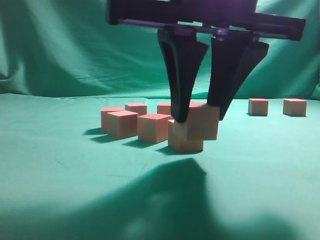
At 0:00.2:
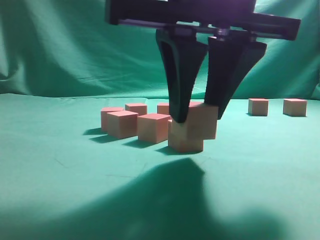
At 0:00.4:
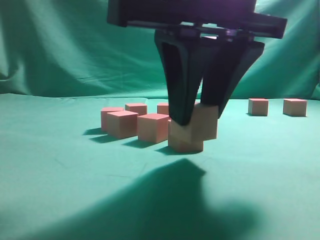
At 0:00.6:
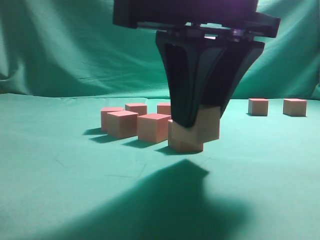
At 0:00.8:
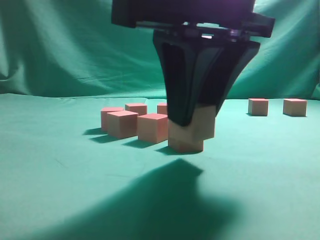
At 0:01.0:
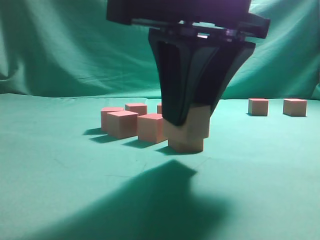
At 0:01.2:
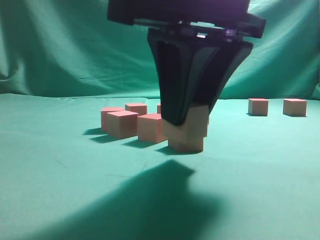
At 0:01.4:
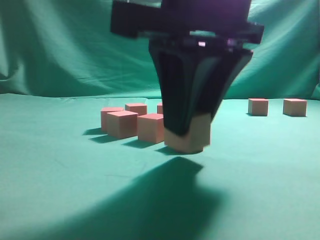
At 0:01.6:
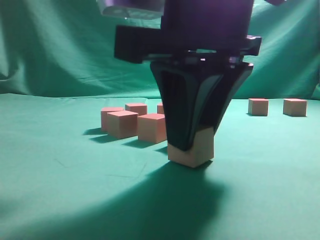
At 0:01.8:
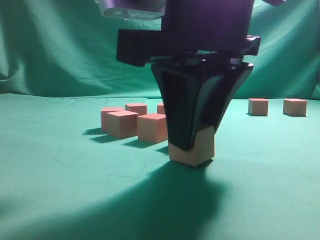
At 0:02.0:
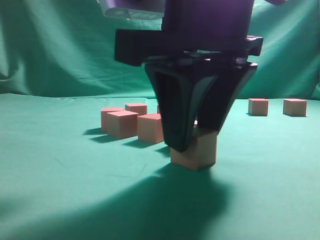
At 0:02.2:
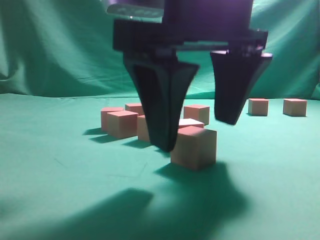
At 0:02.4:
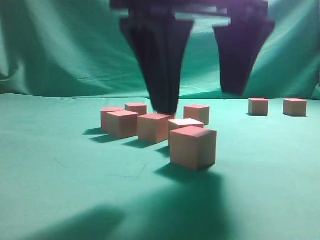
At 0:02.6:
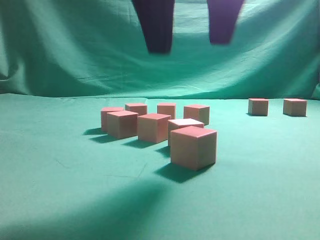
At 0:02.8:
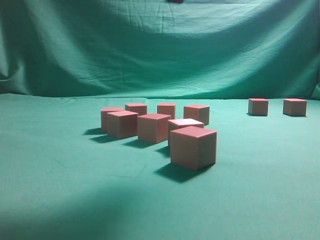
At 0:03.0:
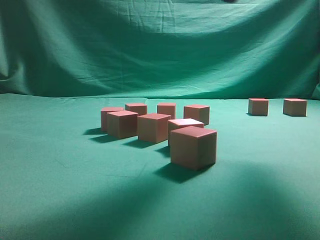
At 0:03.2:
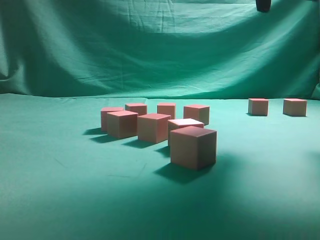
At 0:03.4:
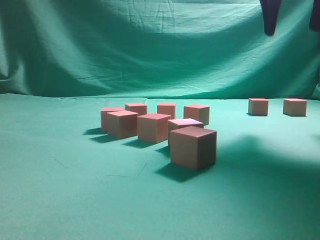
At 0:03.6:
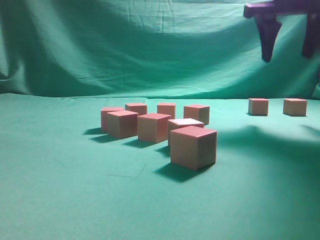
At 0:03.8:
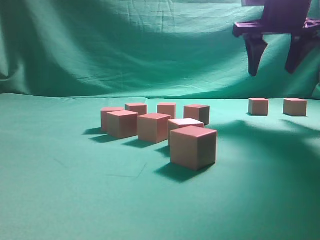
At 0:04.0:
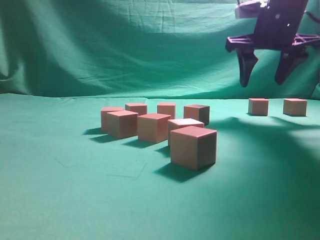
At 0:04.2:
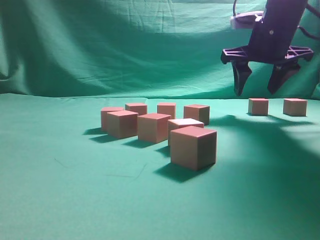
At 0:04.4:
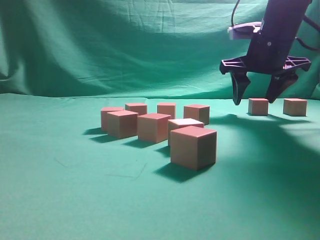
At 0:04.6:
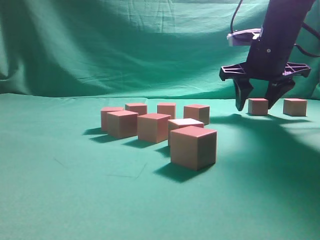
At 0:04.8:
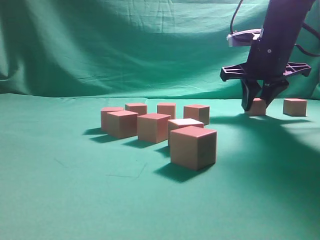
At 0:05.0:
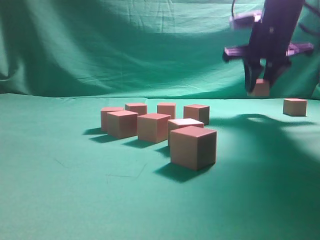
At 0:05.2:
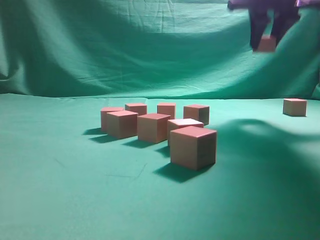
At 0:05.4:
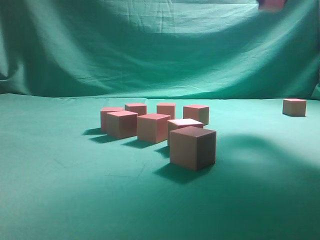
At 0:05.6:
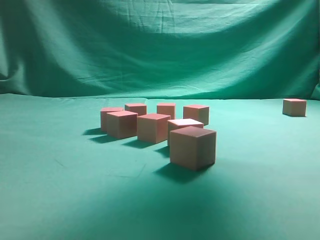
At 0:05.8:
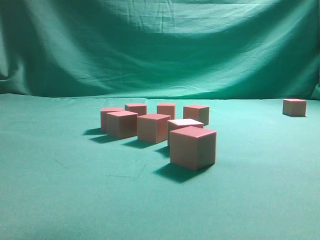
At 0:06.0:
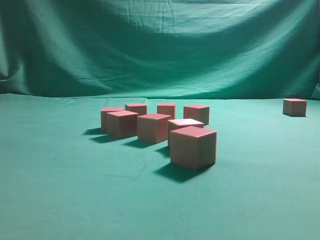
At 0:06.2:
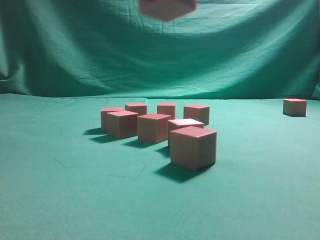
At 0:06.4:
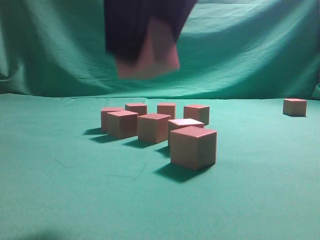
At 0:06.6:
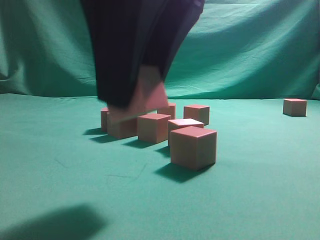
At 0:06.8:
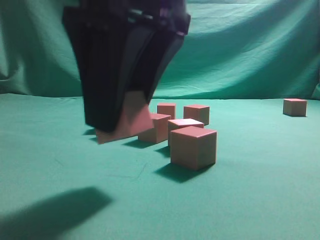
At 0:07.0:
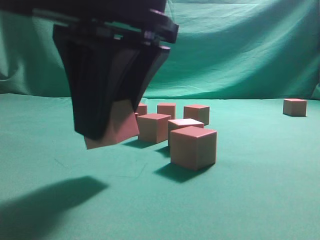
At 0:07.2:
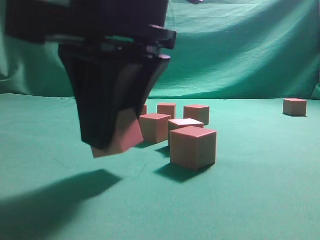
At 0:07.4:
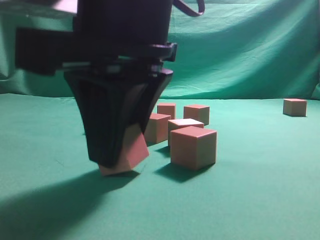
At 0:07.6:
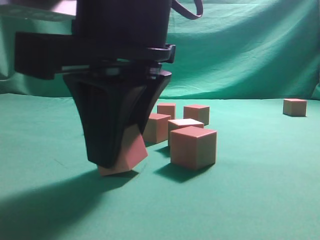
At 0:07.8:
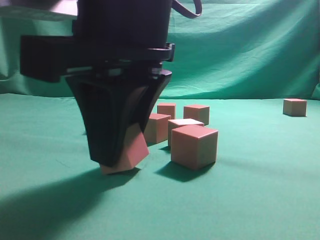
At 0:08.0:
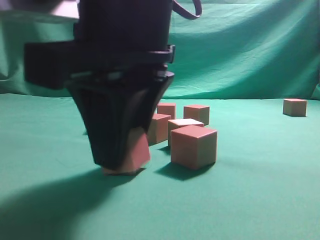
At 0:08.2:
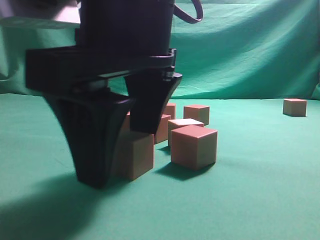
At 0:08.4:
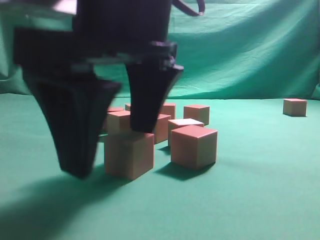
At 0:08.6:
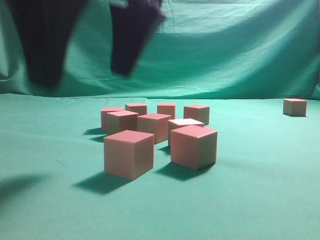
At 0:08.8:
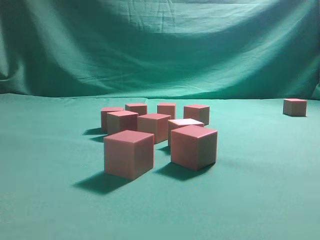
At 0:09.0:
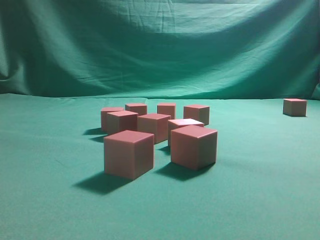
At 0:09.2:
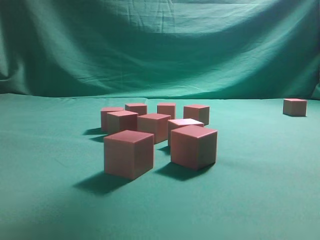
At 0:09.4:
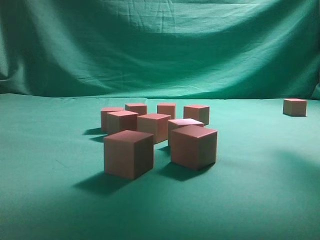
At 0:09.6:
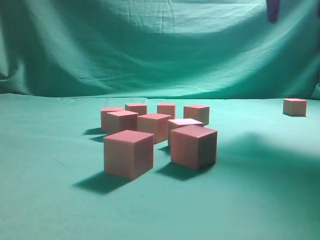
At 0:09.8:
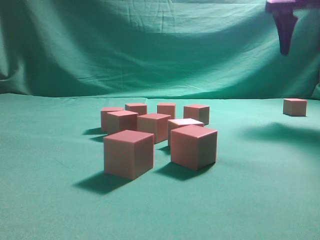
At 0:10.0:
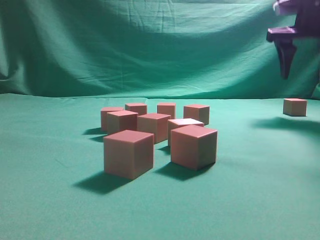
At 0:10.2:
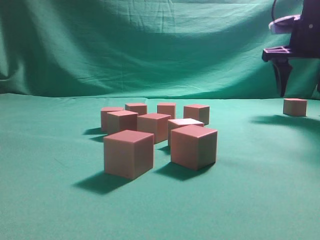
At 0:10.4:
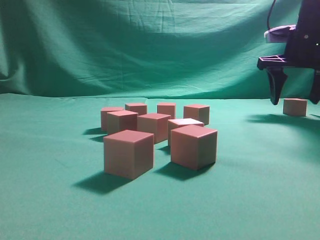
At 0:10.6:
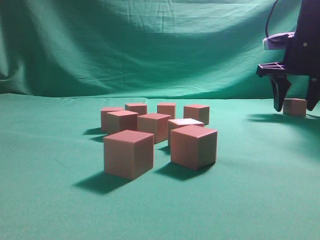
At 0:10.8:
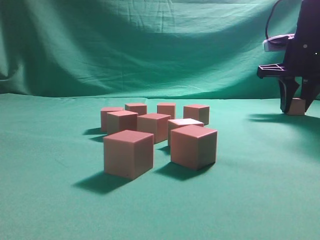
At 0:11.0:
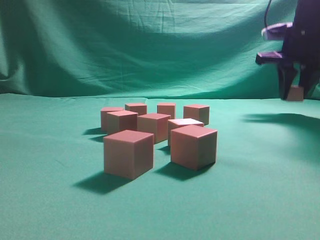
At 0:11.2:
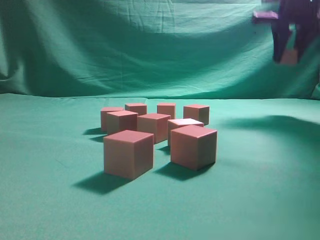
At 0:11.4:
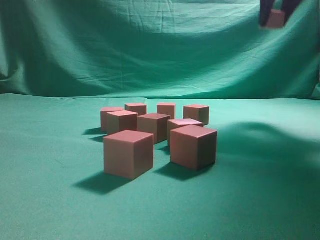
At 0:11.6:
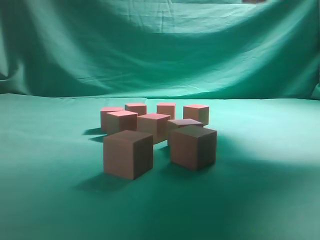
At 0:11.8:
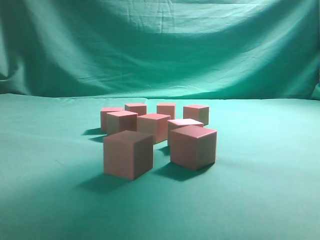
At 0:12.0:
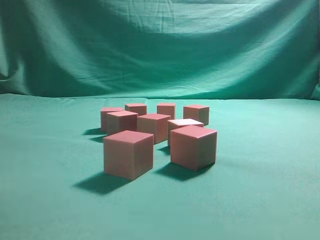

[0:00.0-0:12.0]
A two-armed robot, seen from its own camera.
Task of the whole recording: pick up the multiple cubes in two columns one by one and place them in another position on the table.
Step, 0:00.0 to 0:02.4: Place the block at the correct position to assemble the letter S.
Step, 0:02.6 to 0:04.8: Pick up the block on the table.
Step, 0:05.2 to 0:08.4: Place the block at the correct position to assemble the letter S.
Step, 0:08.8 to 0:11.0: Pick up the block on the table.
0:01.6 to 0:03.0: The right gripper shifts some 20 cm upward, forward and to the right, and opens its fingers.
0:03.0 to 0:04.4: The right gripper shifts approximately 25 cm downward, forward and to the right.
0:04.4 to 0:06.0: The right gripper moves backward, upward and to the left, approximately 30 cm, and closes its fingers.
0:06.0 to 0:07.6: The right gripper is displaced downward and to the left by about 20 cm.
0:07.6 to 0:09.0: The right gripper goes some 20 cm upward, and opens its fingers.
0:09.0 to 0:10.4: The right gripper heads to the right, forward and downward, covering some 40 cm.
0:10.4 to 0:12.0: The right gripper heads upward, backward and to the left, covering roughly 30 cm, and closes.

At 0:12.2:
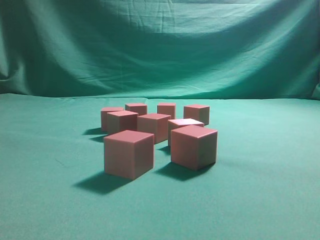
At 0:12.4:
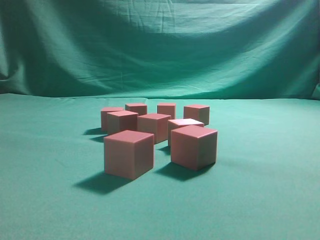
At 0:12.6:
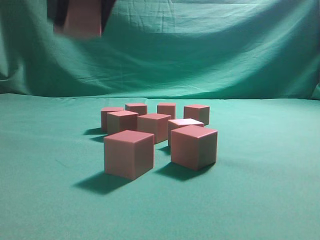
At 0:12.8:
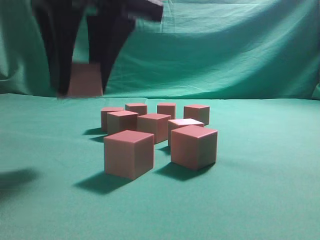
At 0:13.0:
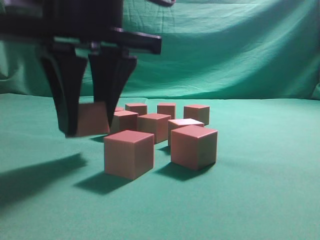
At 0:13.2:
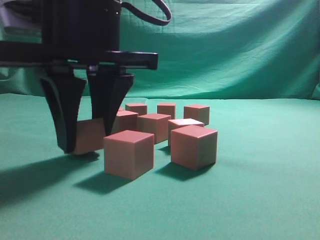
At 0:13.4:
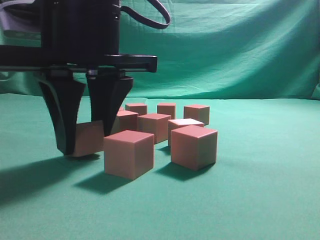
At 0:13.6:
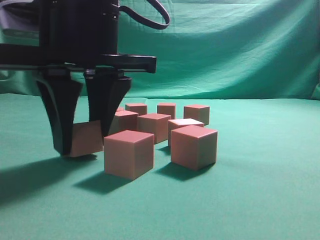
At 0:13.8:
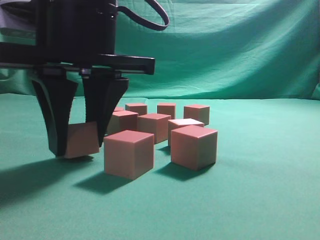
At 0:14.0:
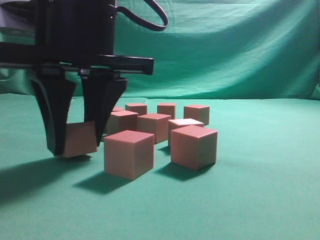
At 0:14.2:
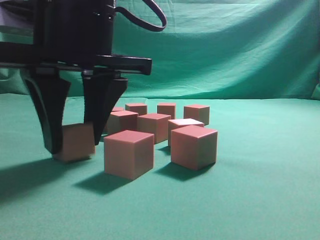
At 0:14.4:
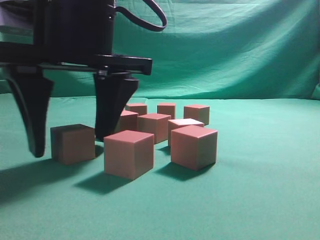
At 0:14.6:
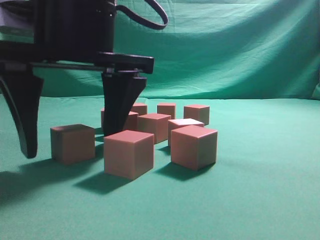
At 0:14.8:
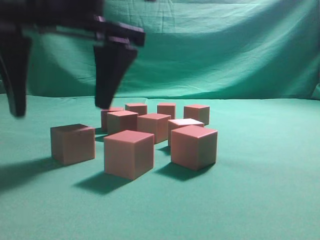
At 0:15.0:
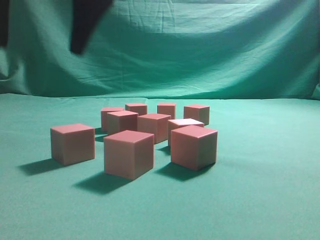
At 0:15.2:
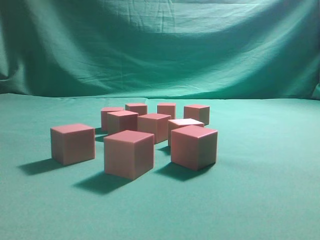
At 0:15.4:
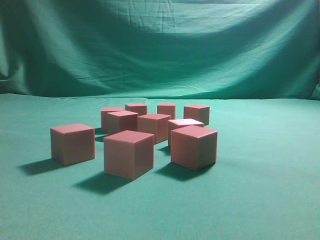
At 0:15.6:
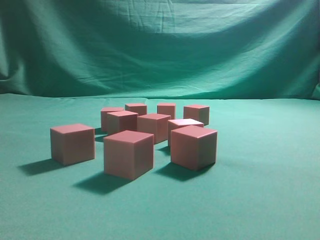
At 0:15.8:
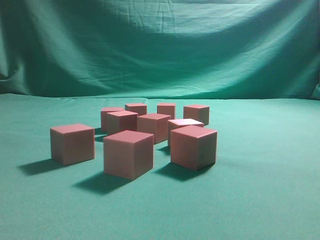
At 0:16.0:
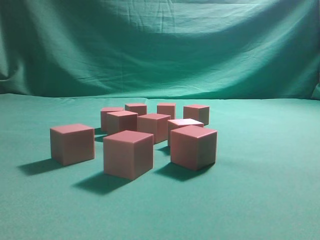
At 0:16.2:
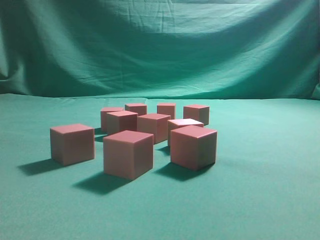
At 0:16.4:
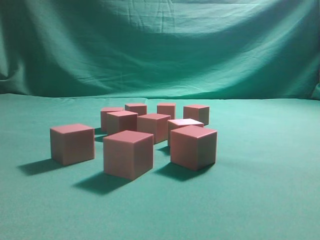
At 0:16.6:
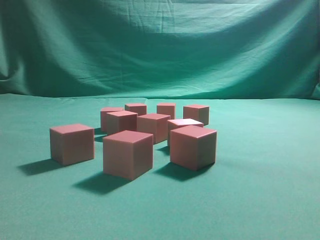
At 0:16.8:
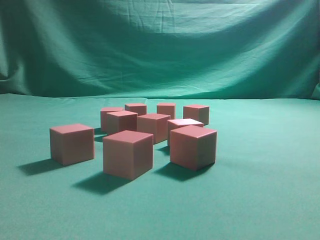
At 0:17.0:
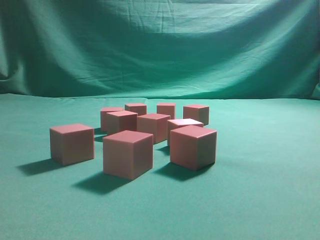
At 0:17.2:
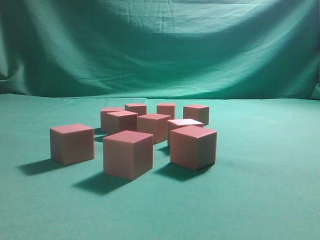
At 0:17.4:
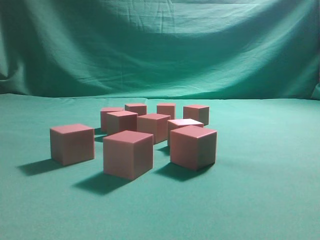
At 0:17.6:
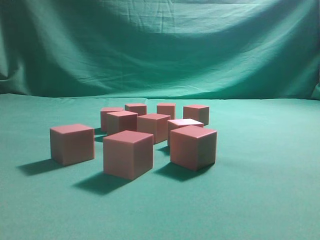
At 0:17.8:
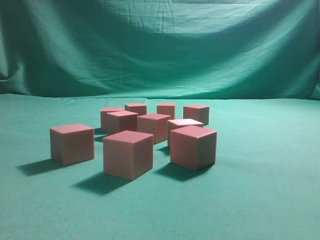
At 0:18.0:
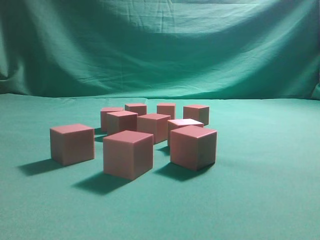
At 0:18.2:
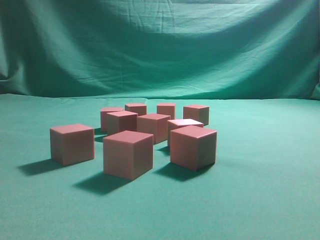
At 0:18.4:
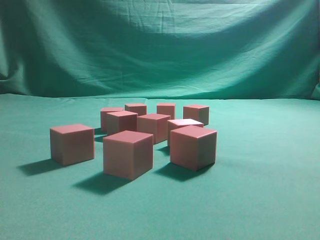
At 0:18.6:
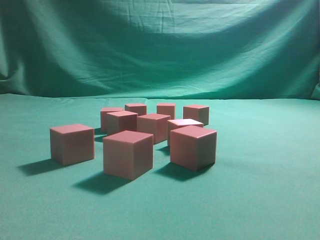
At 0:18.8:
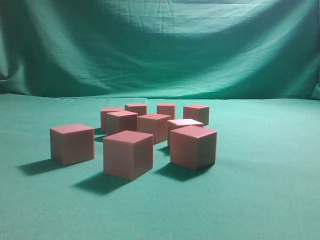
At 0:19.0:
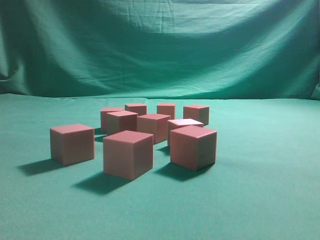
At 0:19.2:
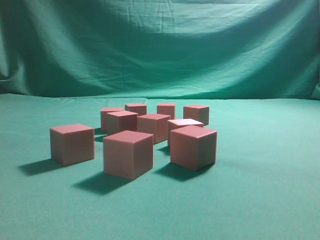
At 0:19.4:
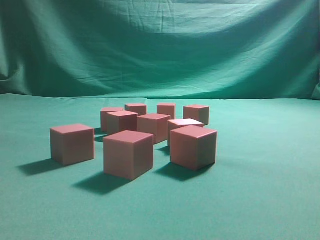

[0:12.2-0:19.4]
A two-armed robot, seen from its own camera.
Task of the whole recording: pick up the multiple cubes in two columns one by one and place them in another position on the table.
Step, 0:12.2 to 0:14.8: Place the block at the correct position to assemble the letter S.
0:12.2 to 0:13.6: The right gripper goes about 20 cm downward and to the left.
0:13.6 to 0:15.0: The right gripper is displaced upward by approximately 10 cm, and opens its fingers.
